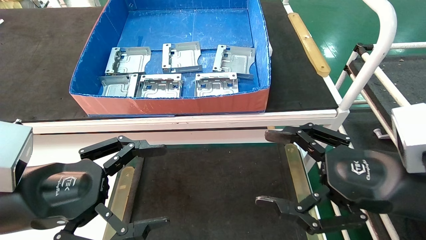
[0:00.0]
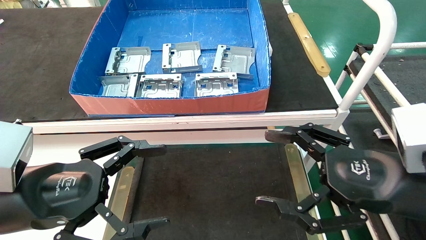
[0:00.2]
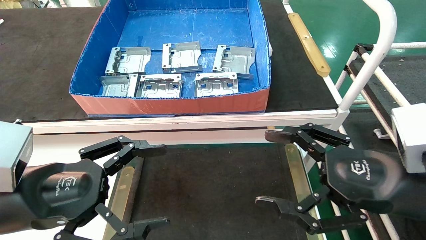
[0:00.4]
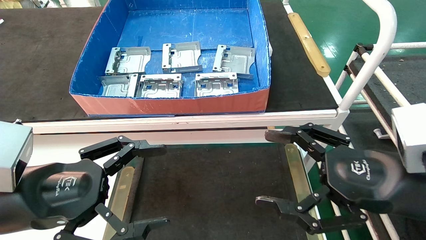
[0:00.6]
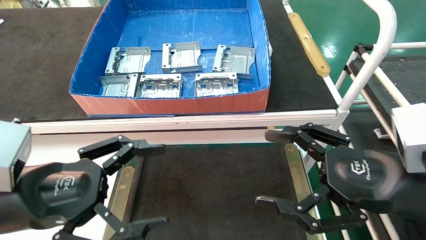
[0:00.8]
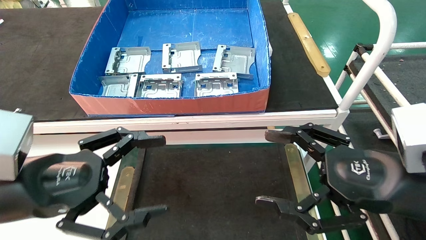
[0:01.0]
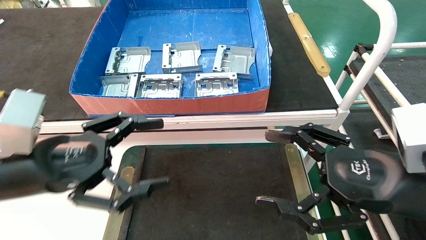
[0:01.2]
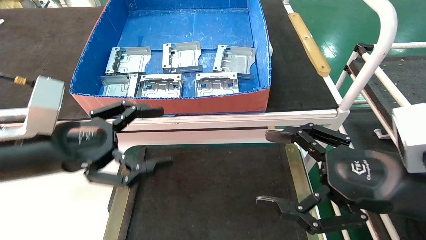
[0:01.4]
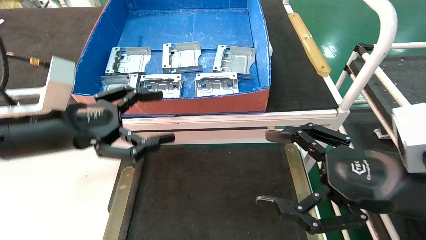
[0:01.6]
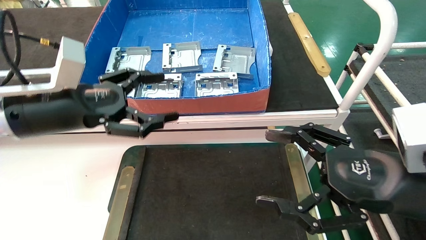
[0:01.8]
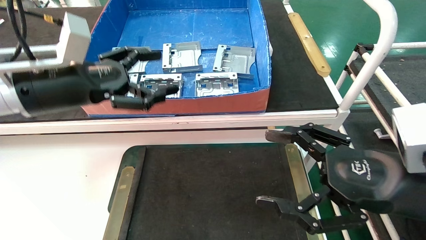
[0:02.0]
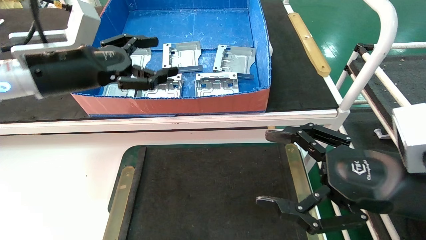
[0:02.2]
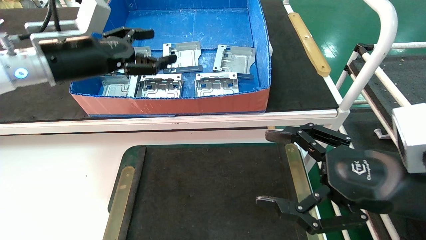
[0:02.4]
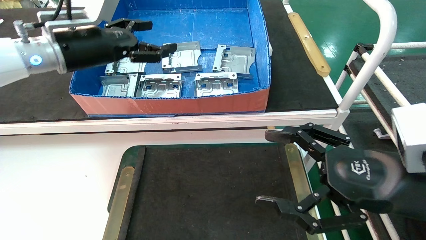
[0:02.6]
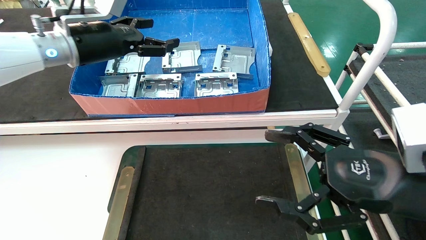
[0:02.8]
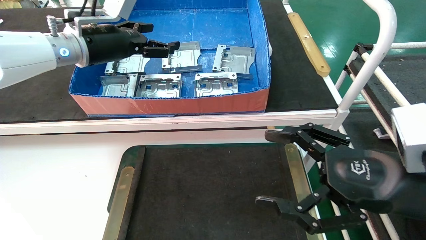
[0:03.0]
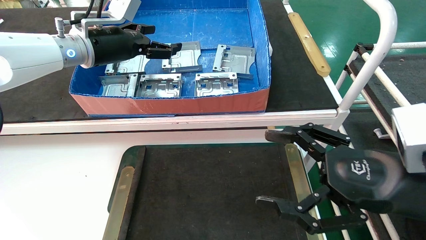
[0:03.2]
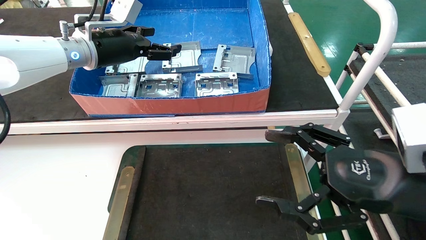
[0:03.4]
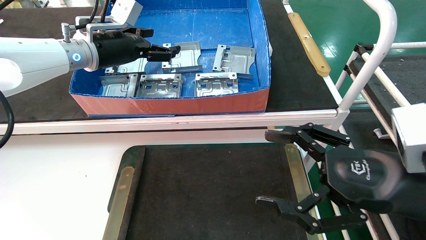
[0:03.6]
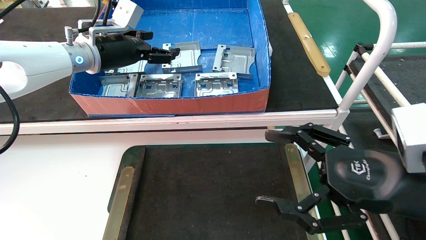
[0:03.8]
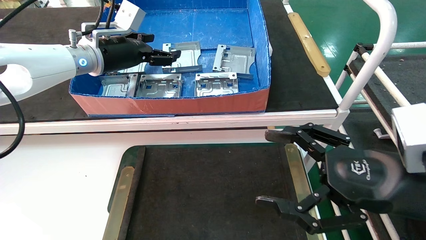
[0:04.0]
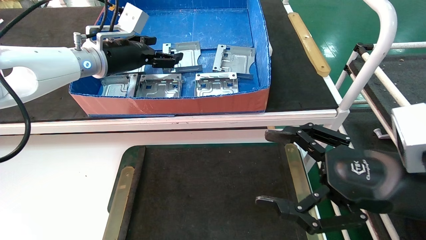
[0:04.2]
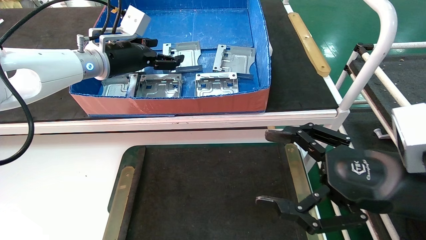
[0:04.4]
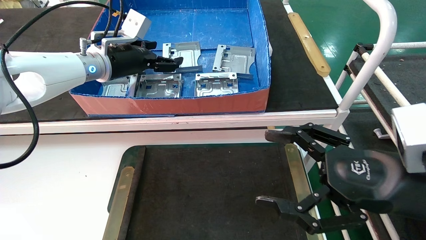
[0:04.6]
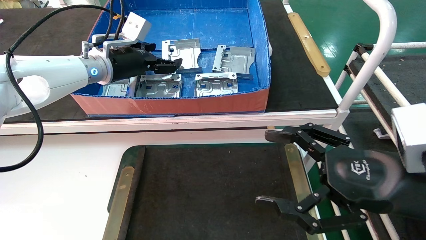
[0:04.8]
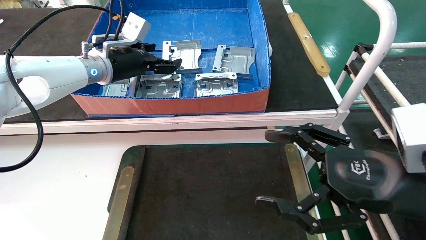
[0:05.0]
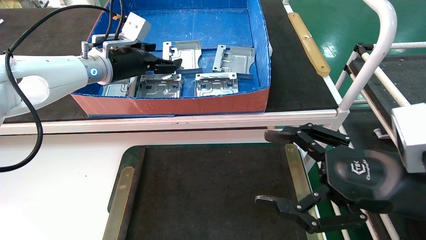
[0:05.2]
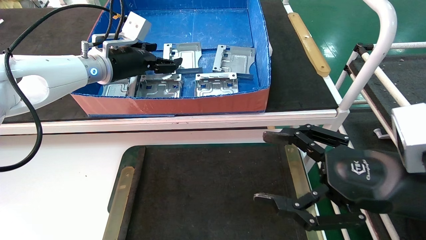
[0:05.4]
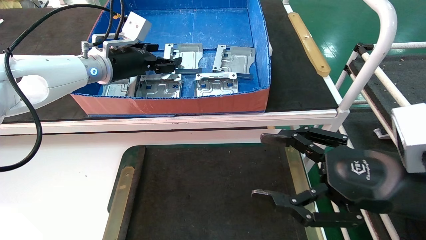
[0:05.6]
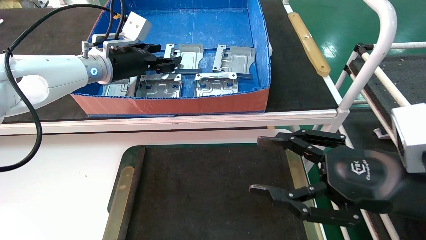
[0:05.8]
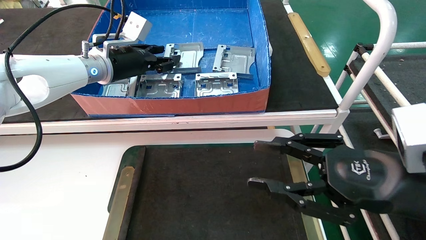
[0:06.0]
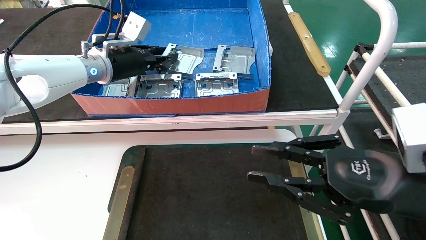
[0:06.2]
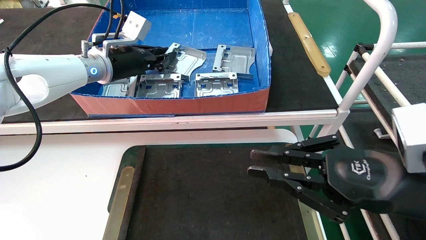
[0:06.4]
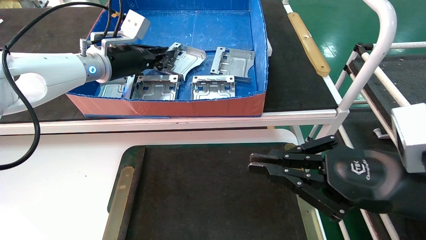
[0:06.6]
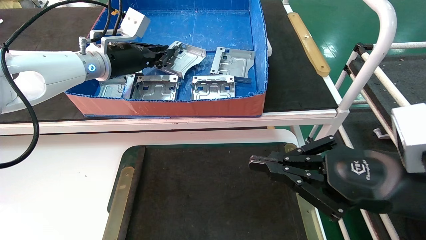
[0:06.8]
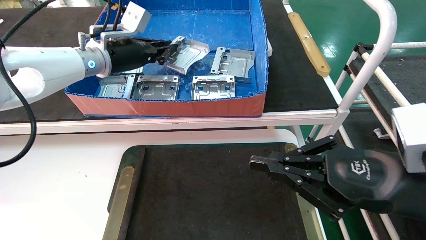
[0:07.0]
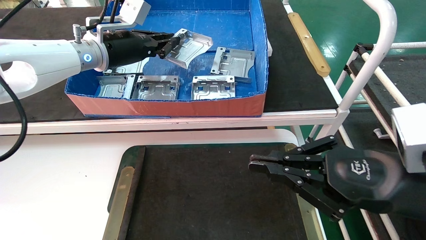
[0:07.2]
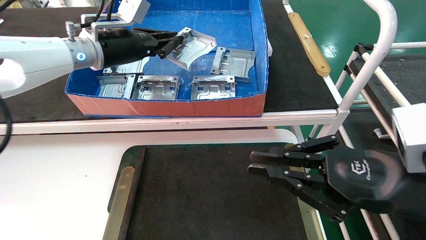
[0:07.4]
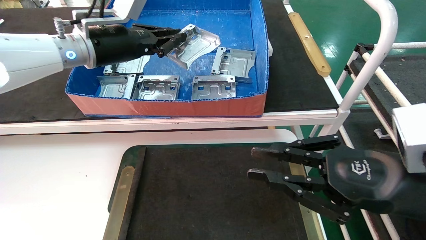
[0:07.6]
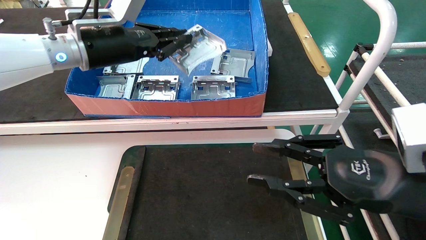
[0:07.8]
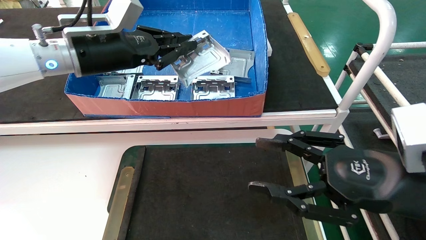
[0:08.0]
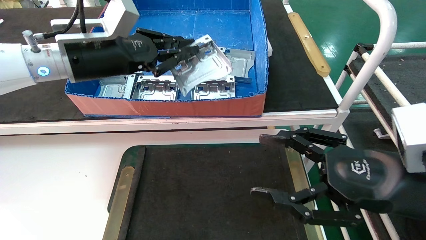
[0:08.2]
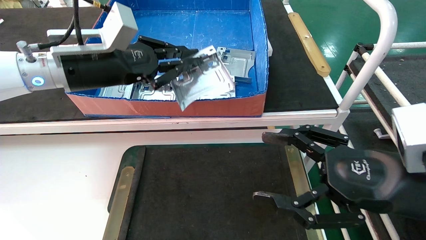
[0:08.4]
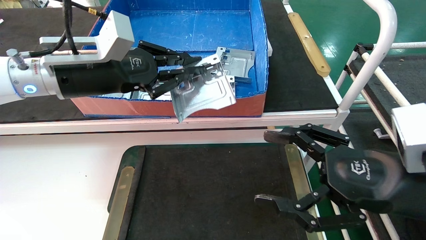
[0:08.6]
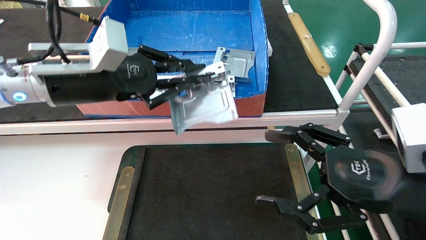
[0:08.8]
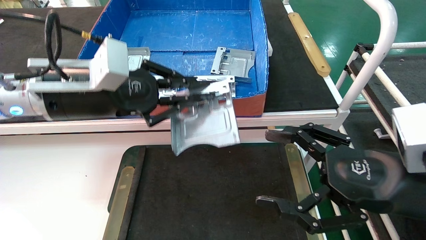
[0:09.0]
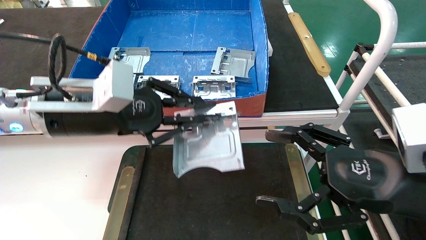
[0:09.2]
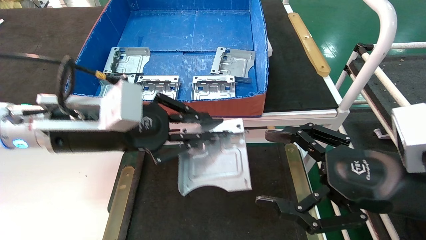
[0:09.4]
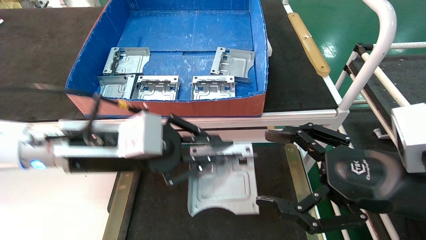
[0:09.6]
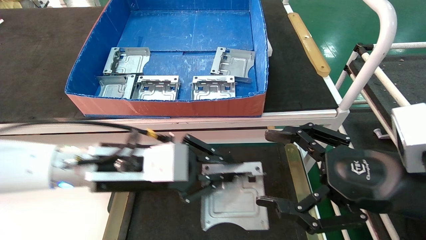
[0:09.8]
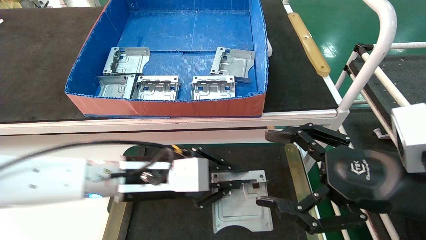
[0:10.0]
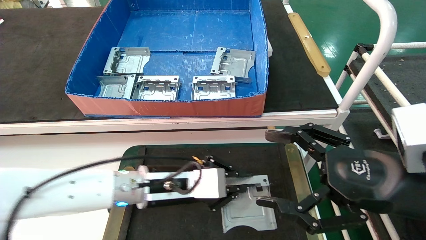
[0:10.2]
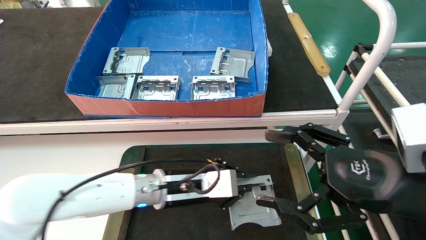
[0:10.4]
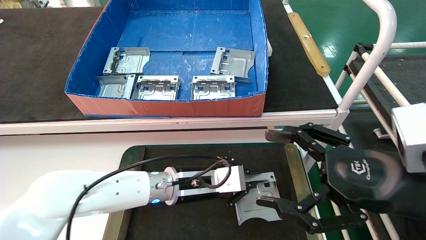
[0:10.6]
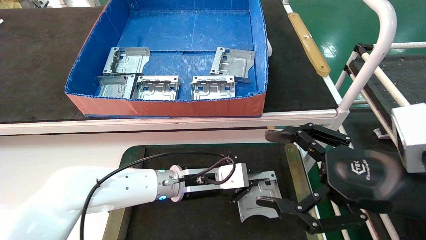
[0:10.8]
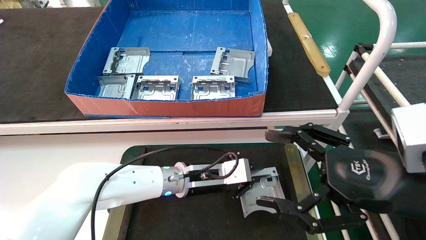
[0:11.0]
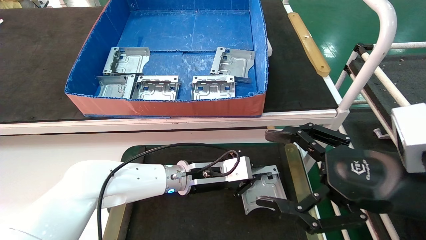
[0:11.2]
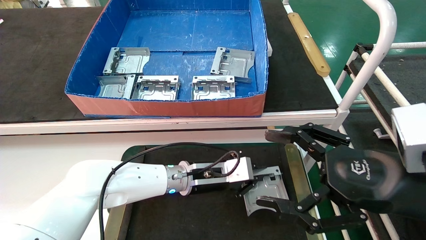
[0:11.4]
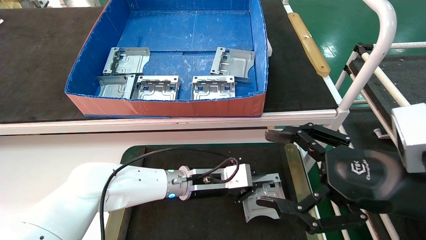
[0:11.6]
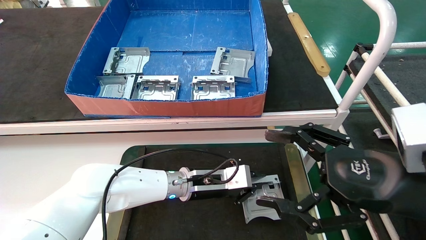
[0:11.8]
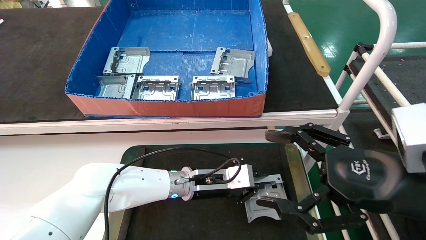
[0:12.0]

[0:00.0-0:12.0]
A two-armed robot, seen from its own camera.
Task of the whole recording: take the accessories out of the box and place them on the table.
Step, 0:01.2 to 0:06.6: Pick up the hard drive bracket from the feeding area.
0:00.0 to 0:01.6: The left gripper is displaced forward and upward by roughly 10 cm.
0:01.6 to 0:03.0: The left gripper heads forward and upward, covering roughly 20 cm.
0:03.0 to 0:04.4: The grippers make only small movements.
0:04.4 to 0:06.0: The left gripper closes up. The right gripper closes its fingers.
0:06.0 to 0:07.6: The right gripper closes; the left gripper changes place by approximately 5 cm, and closes up.
0:07.6 to 0:09.0: The left gripper is displaced backward and downward by approximately 15 cm. Meanwhile the right gripper opens its fingers.
0:09.0 to 0:10.4: The left gripper shifts approximately 25 cm downward and to the right.
0:10.4 to 0:12.0: The left gripper heads forward, covering roughly 5 cm.

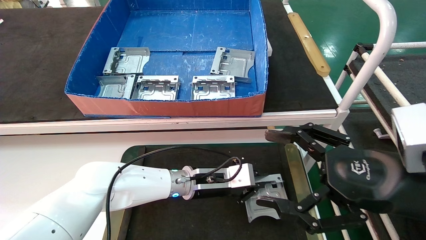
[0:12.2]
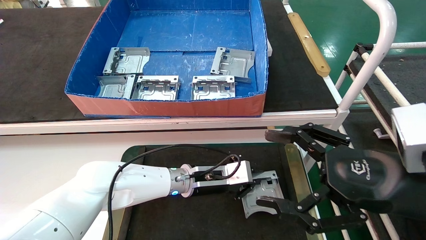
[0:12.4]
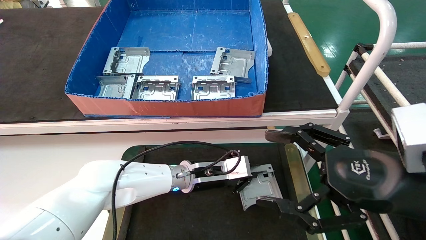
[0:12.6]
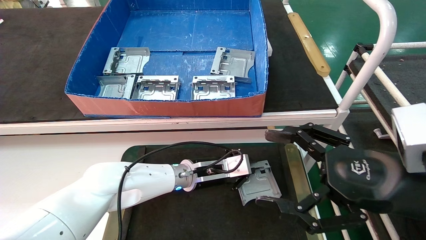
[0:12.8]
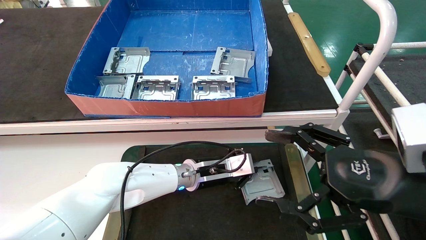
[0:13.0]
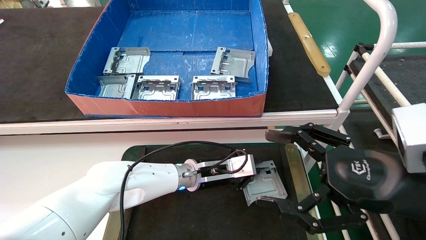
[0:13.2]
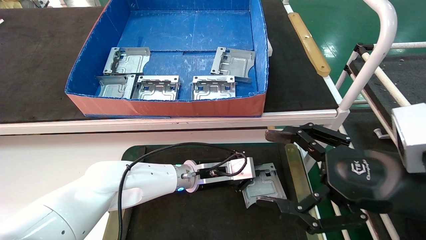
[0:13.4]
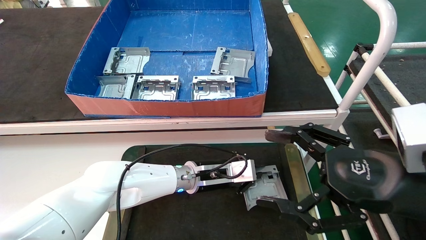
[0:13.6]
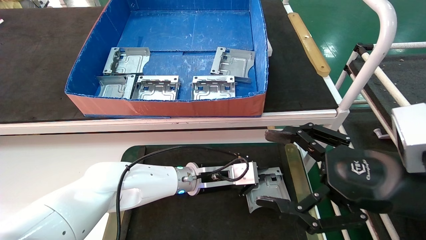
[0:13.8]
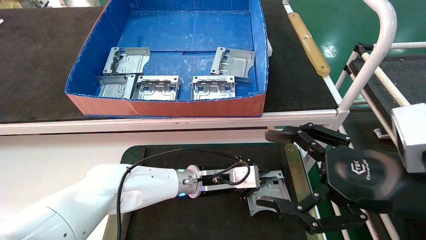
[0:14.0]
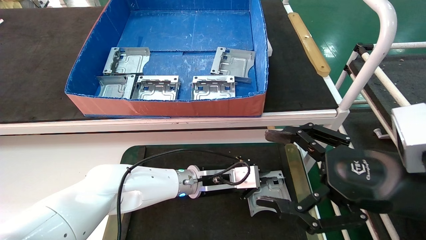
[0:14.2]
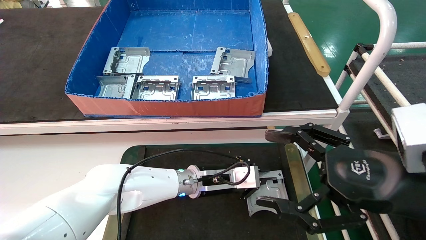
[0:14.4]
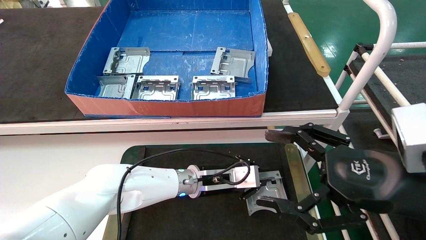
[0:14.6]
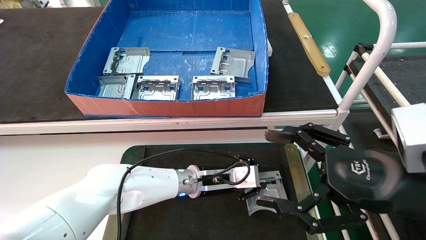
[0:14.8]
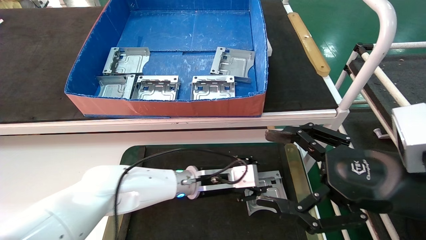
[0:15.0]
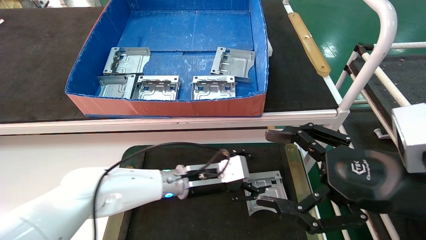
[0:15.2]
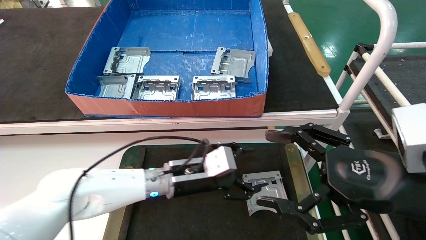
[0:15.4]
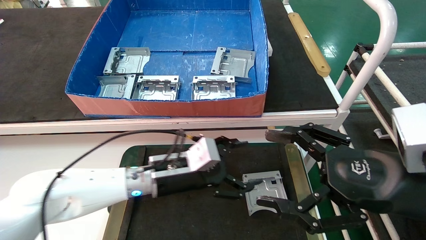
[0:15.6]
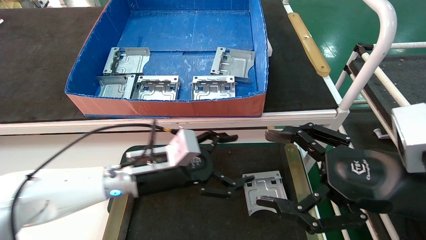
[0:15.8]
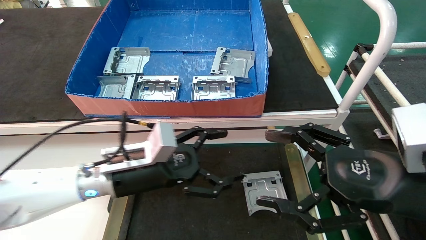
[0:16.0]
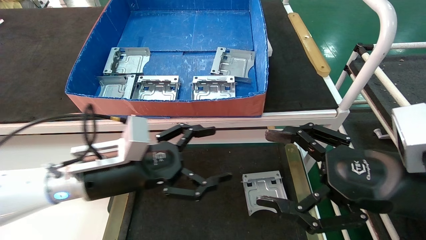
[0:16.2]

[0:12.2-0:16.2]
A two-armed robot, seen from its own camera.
Task of the whole recording: take the accessories out of the box and place them on the table.
Step, 0:12.2 to 0:14.8: Place the hard drive bracket into the box.
0:12.2 to 0:13.6: The grippers stay close to where they were, moving slightly.
0:13.6 to 0:14.8: Both grippers stay about where they are.
0:14.8 to 0:16.2: The left gripper goes about 20 cm to the left, backward and upward, and opens.
